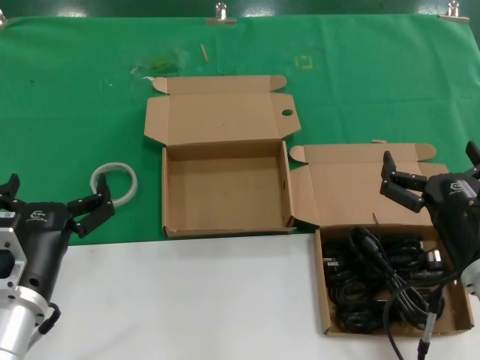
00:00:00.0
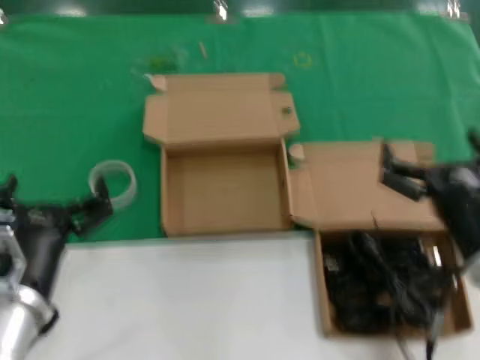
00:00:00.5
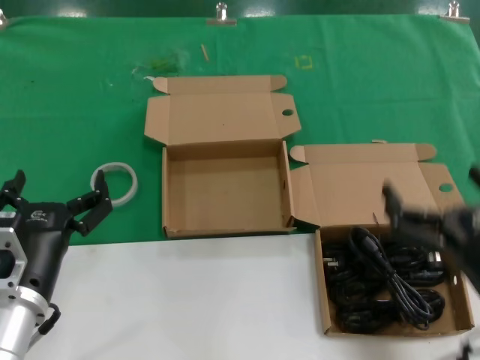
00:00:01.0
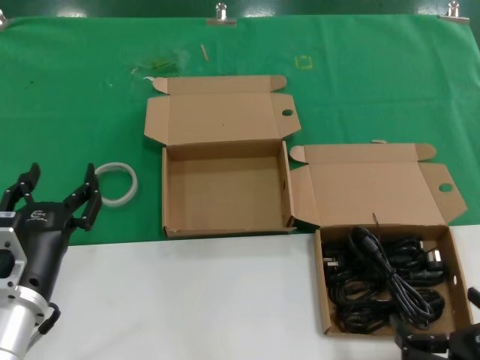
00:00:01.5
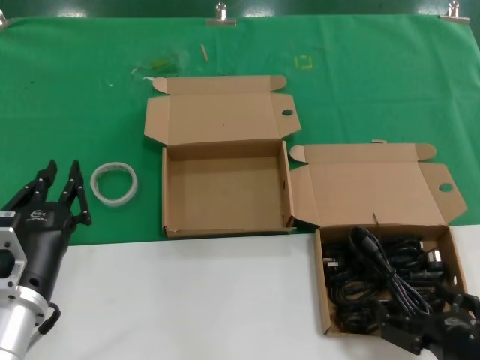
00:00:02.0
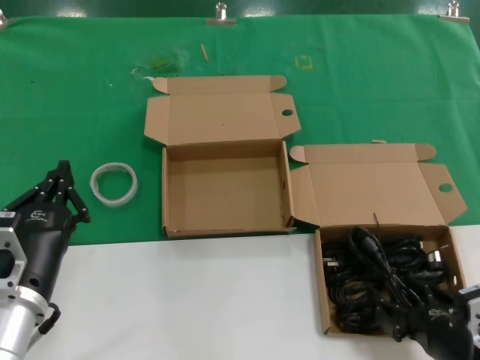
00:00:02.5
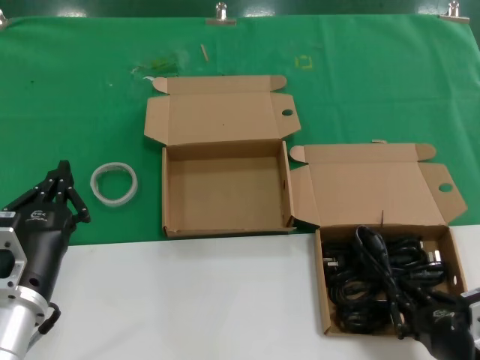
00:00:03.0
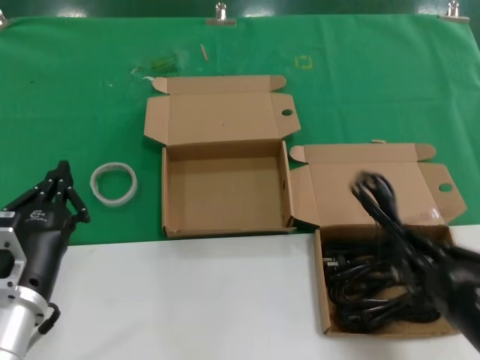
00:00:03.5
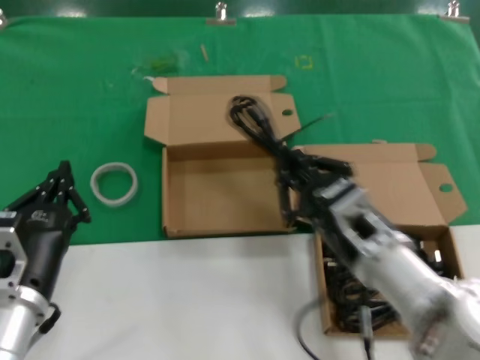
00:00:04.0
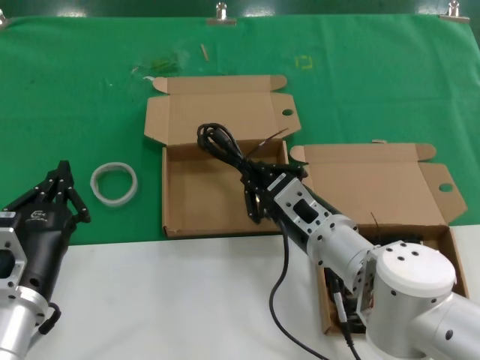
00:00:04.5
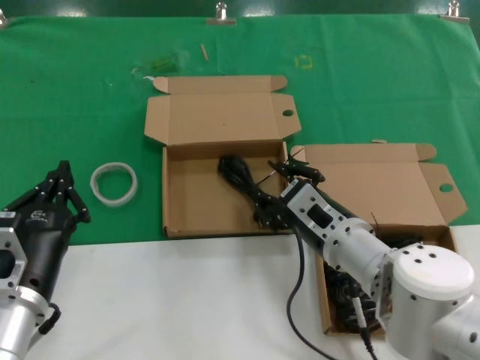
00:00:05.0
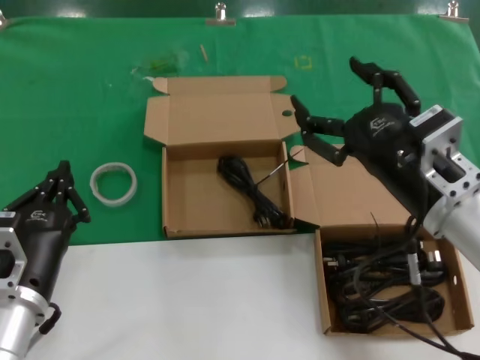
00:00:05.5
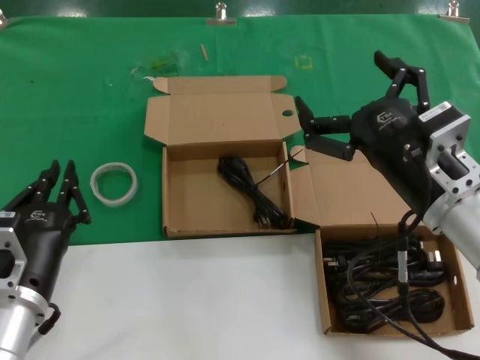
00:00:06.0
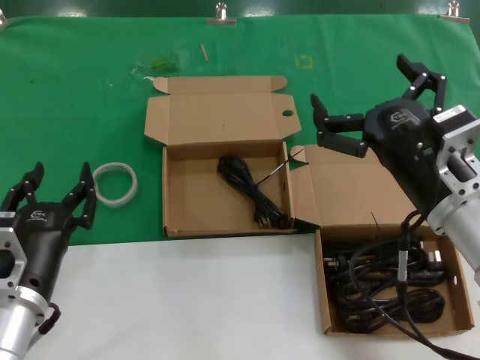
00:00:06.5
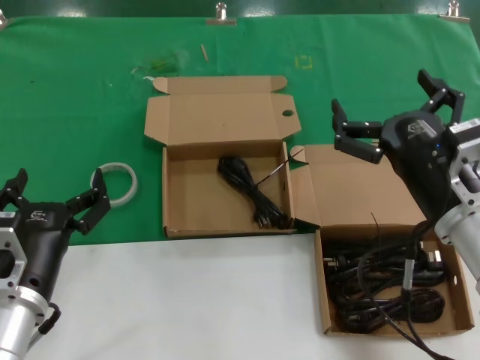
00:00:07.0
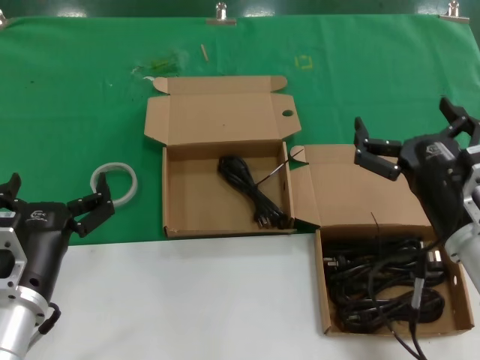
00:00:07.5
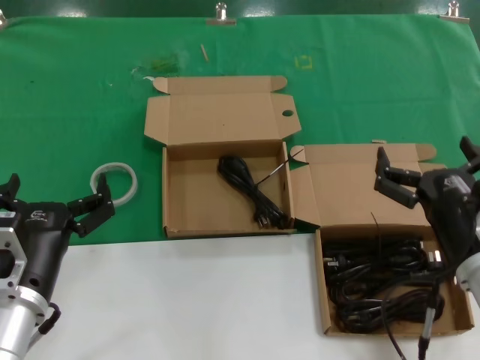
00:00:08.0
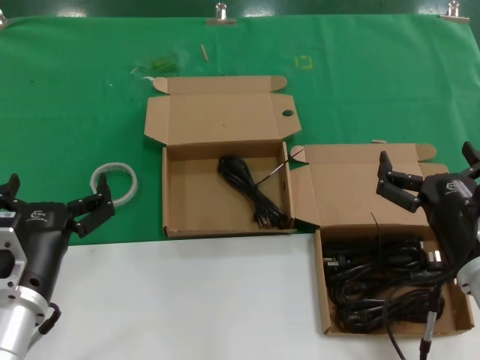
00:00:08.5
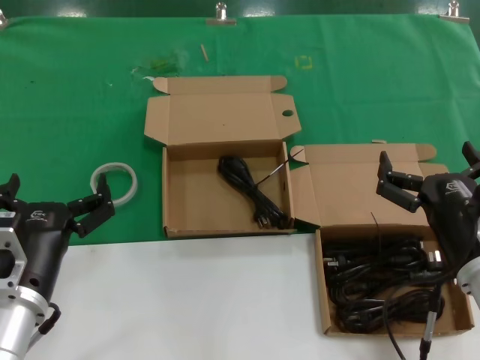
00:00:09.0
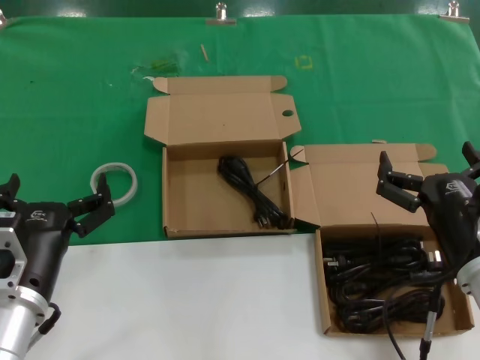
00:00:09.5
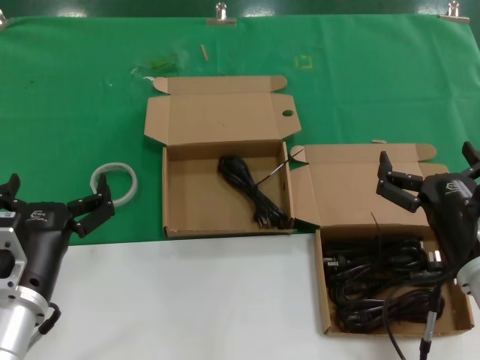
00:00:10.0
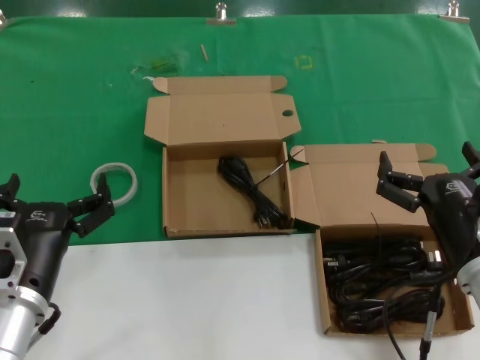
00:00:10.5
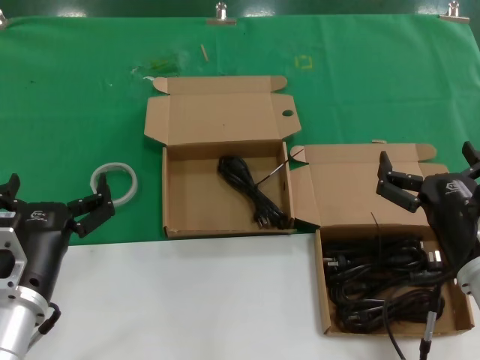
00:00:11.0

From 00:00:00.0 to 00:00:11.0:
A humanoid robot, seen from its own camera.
Task of the whole recording: Pick up the power cord from the box containing it and place it in another box.
Step, from 00:00:00.0 to 00:00:03.0: Grasp the data cable.
Step, from 00:00:03.5 to 00:00:05.0: Place the data cable in the another box.
From 00:00:00.0 to 00:00:02.0: The right hand moves backward, some 10 cm.
From 00:00:02.0 to 00:00:03.5: The right hand travels upward by roughly 5 cm.
From 00:00:03.5 to 00:00:05.5: The right hand is displaced forward, upward and to the left by about 15 cm.
From 00:00:05.5 to 00:00:07.5: The right hand travels downward by about 5 cm.
From 00:00:07.5 to 00:00:09.0: The hands make only small movements.
From 00:00:09.0 to 00:00:11.0: Both hands stay put.
